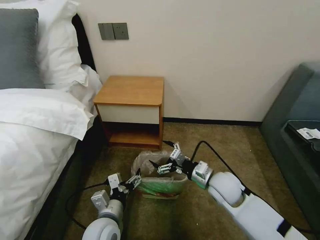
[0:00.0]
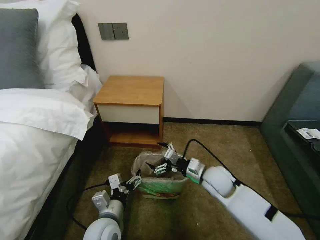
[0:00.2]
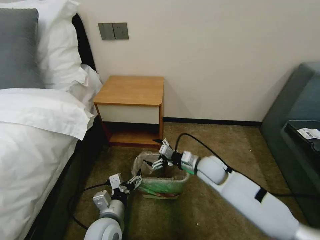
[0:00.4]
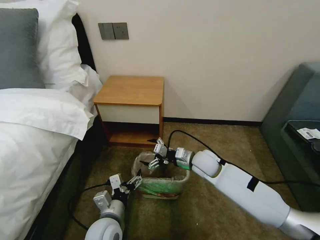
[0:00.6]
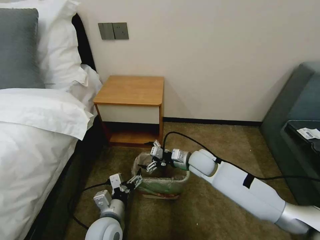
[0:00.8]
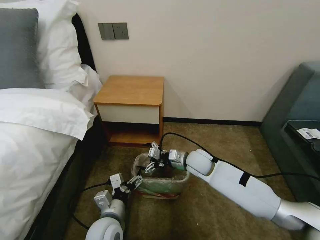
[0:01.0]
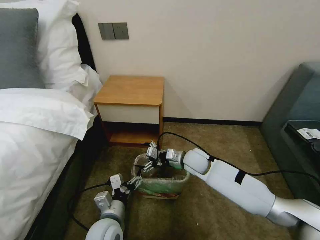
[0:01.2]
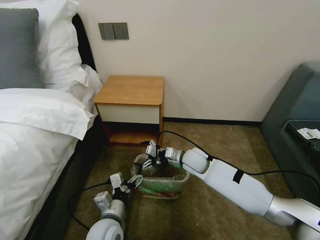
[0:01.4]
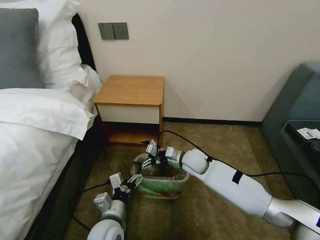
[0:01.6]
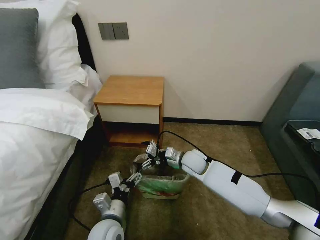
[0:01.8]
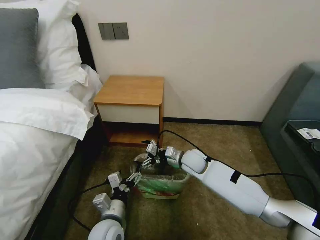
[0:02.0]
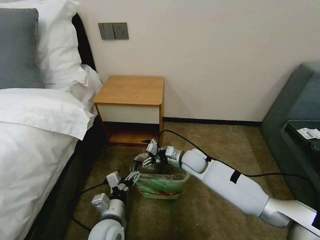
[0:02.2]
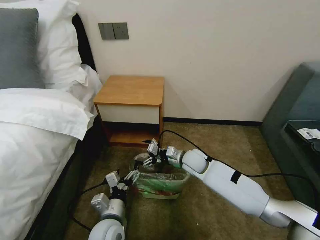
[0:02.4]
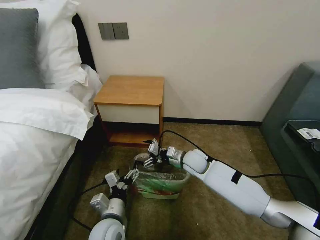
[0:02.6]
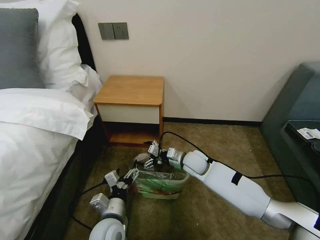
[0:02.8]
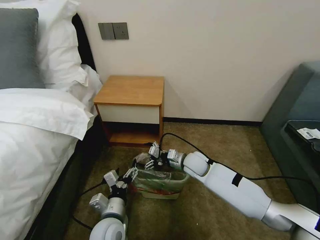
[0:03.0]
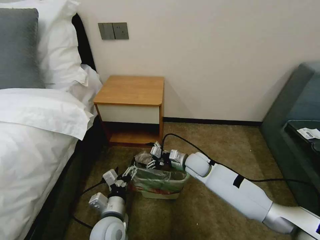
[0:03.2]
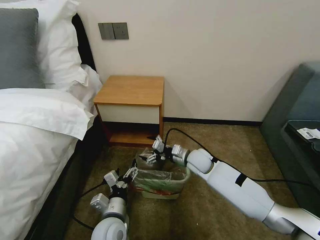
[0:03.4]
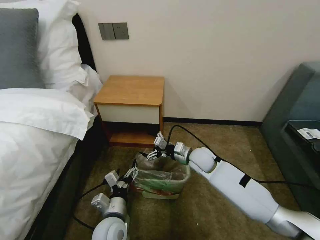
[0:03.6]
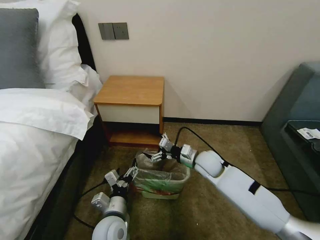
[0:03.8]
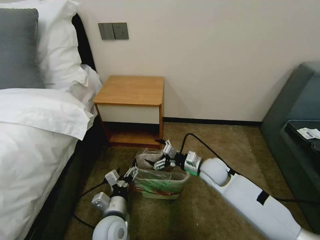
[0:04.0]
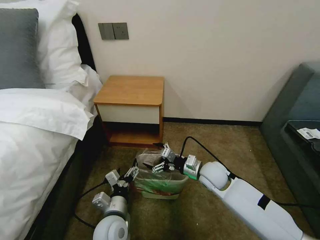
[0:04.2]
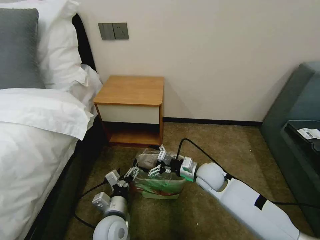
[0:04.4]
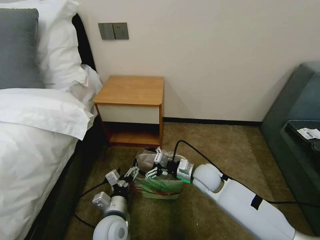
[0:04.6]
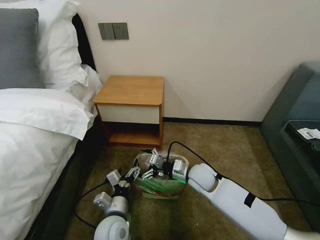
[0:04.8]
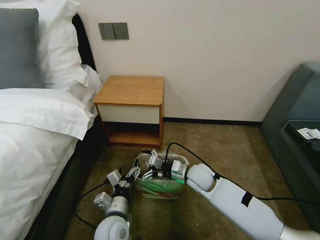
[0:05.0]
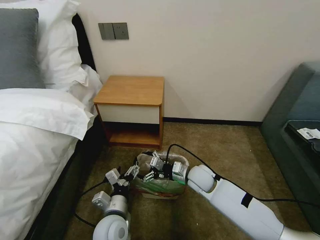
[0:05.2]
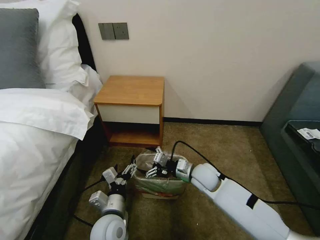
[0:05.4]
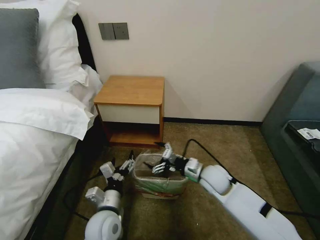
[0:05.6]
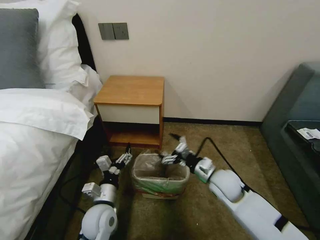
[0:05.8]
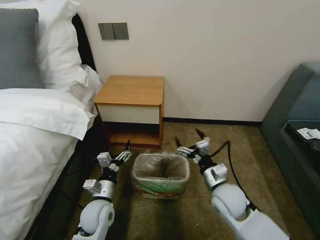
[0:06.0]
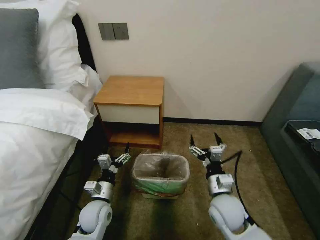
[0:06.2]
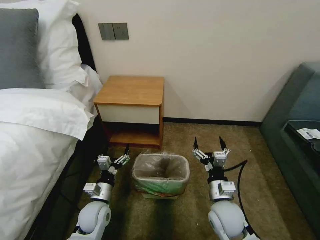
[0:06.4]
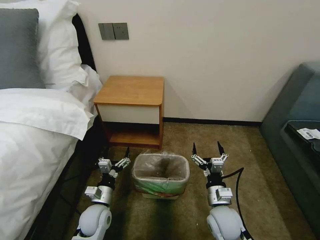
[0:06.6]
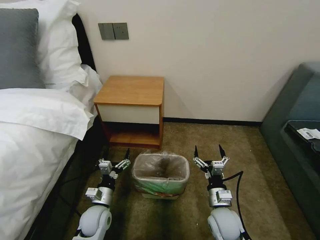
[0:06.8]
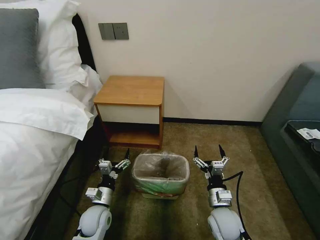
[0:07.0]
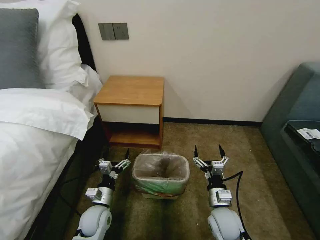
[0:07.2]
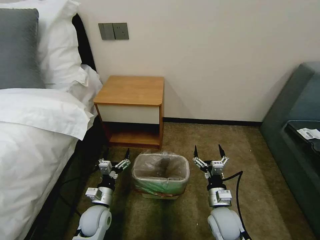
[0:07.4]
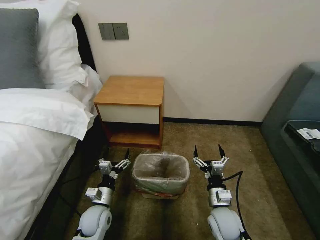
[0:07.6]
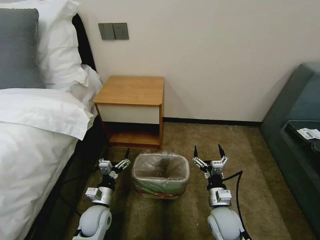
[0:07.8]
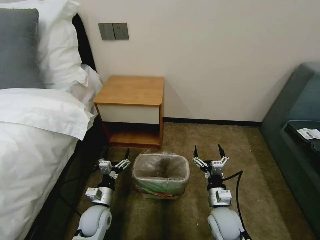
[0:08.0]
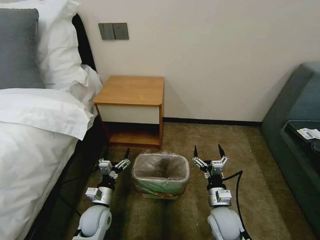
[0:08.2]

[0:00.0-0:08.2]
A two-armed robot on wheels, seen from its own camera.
Task of the whole recording: Pick up the garbage bag from the table and place it over the trash can.
0.0 to 1.6 s: The right gripper heads forward and to the left, covering some 15 cm.
1.6 to 3.2 s: The grippers stay close to where they were, moving slightly.
3.2 to 5.0 s: The right gripper heads backward, covering about 5 cm.
5.0 to 6.6 s: The right gripper shifts about 15 cm backward; the left gripper shifts roughly 10 cm to the left and downward.
6.6 to 8.2 s: The grippers make only small movements.

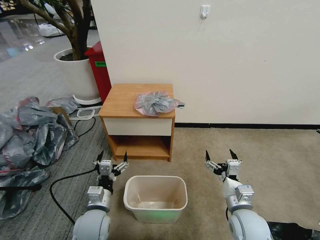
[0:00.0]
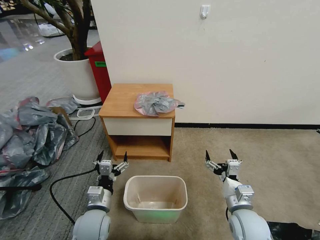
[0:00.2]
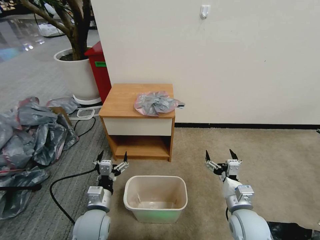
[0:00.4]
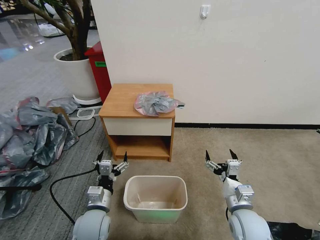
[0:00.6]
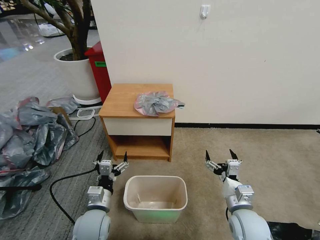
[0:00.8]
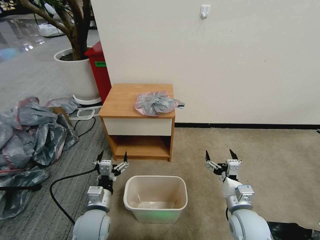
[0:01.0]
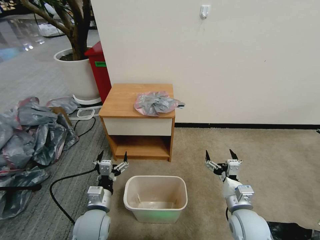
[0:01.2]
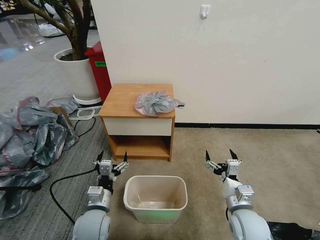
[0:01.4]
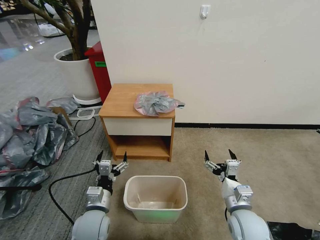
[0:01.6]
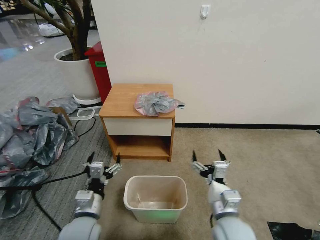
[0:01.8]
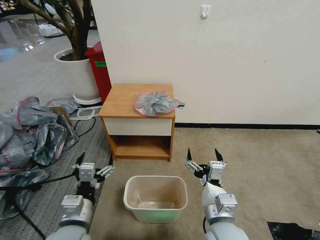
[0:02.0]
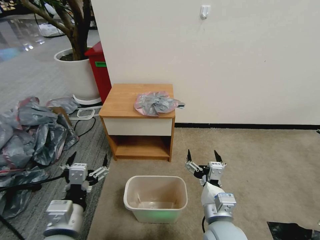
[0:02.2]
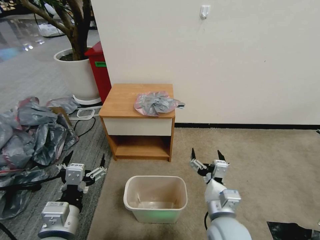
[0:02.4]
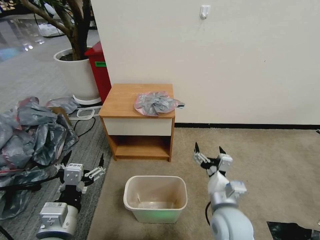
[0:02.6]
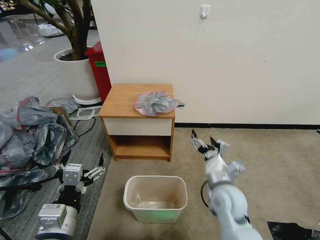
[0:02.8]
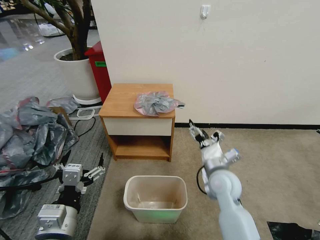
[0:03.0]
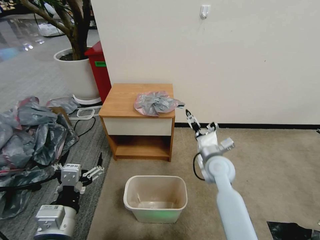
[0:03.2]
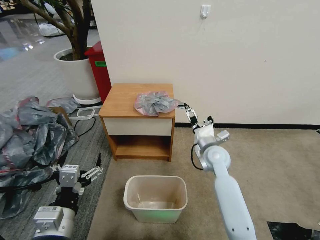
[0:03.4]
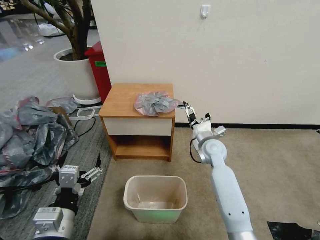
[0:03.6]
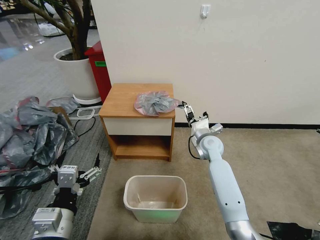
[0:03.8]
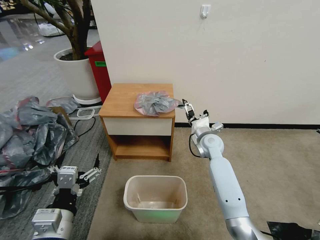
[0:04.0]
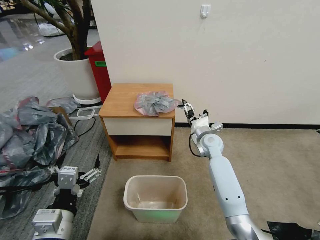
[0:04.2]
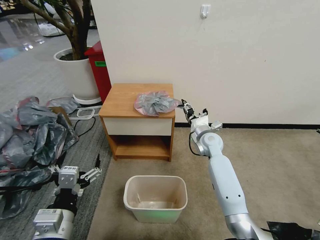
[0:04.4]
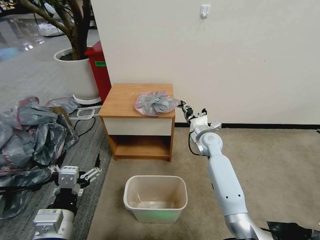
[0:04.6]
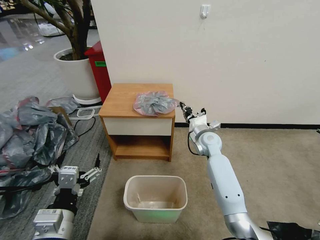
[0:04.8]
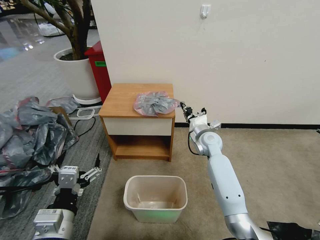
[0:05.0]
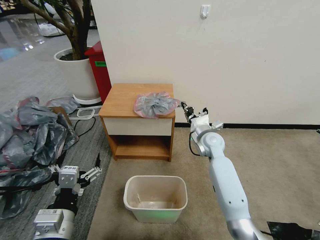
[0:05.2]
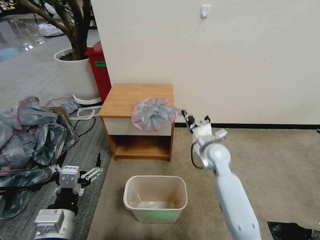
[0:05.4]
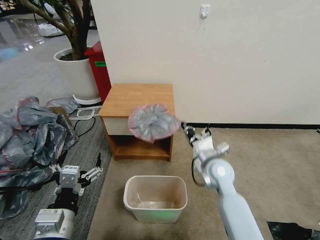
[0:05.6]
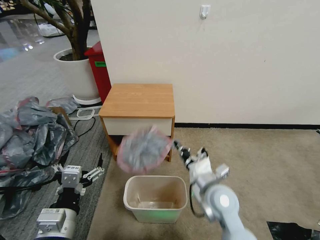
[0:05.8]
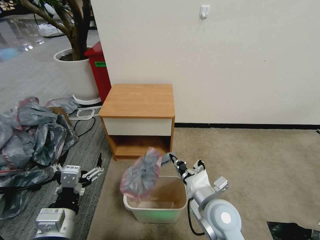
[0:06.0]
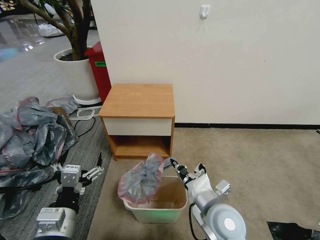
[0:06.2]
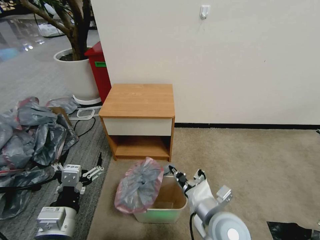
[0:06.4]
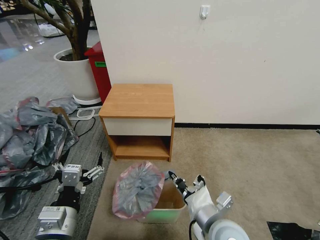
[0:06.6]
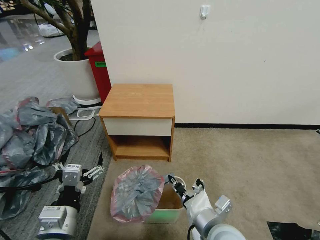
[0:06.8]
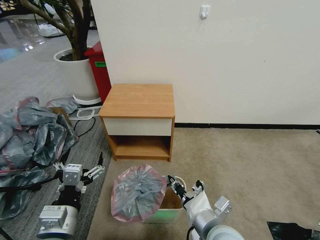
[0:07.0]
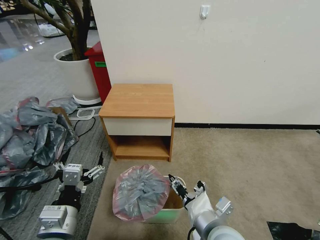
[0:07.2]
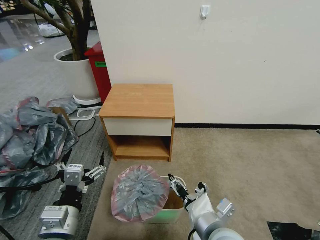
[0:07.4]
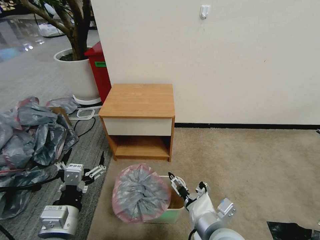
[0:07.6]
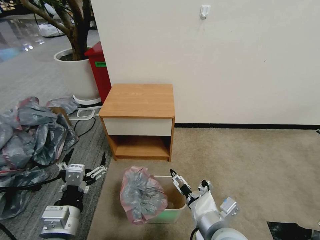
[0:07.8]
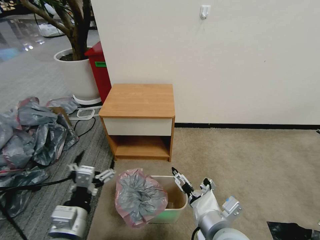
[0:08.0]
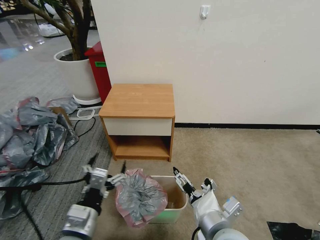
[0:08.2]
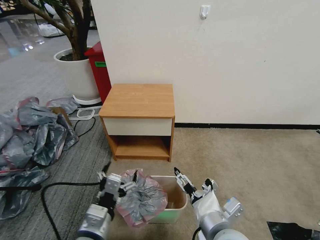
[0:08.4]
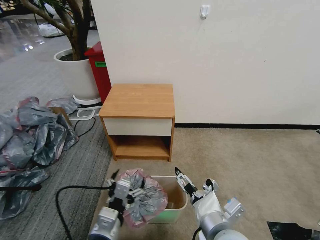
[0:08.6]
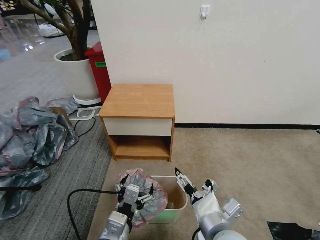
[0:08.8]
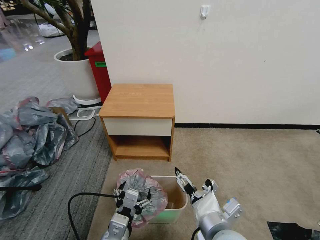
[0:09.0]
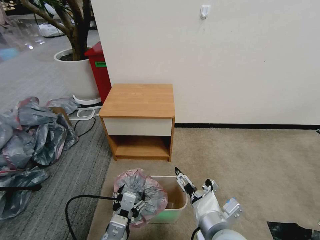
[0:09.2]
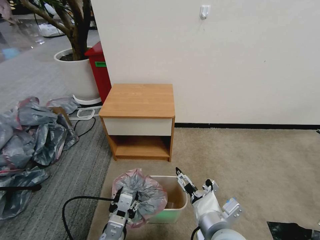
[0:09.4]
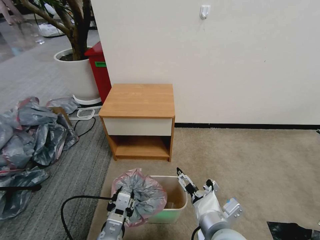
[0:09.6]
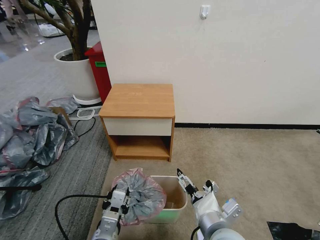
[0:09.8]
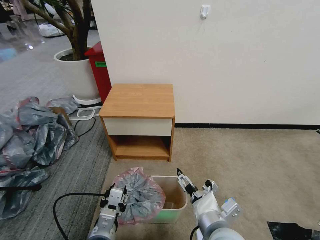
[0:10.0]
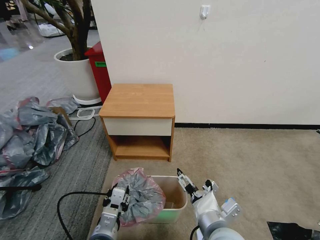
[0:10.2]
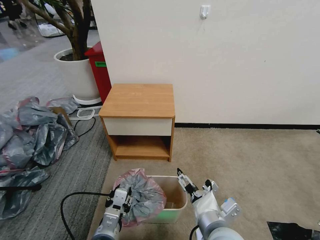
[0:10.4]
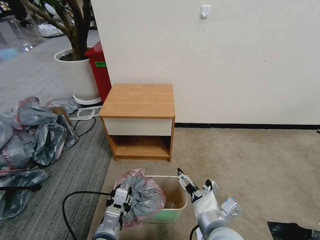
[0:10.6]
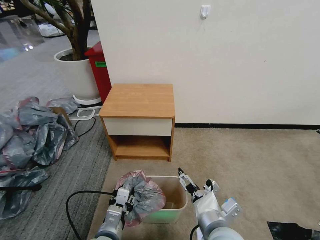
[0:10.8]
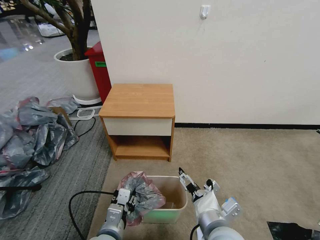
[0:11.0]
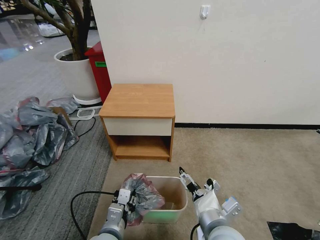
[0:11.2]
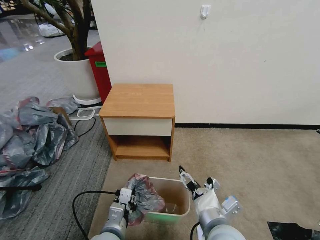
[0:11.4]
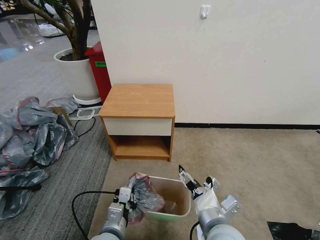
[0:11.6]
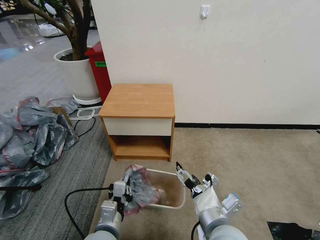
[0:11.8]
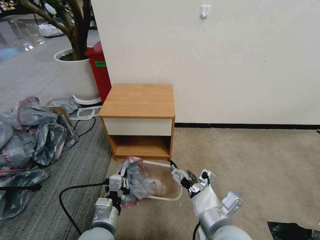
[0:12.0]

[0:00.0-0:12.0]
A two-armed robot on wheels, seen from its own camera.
Task of the whole recording: Pick up the garbage bag from the table and place it over the trash can.
1.6 to 3.0 s: The right gripper shifts roughly 10 cm forward and upward, while the left gripper goes some 15 cm upward and backward.
3.0 to 4.4 s: The right gripper shifts about 15 cm forward, and closes.
4.4 to 6.0 s: The right gripper goes some 25 cm backward, and closes up.
6.0 to 7.6 s: The right gripper heads backward, covering about 5 cm, and opens its fingers.
7.6 to 9.0 s: The left gripper moves to the right and downward, approximately 10 cm.
9.0 to 10.4 s: The left gripper closes up.
10.4 to 12.0 s: The left gripper closes.

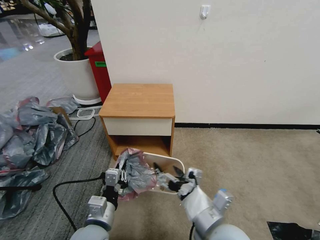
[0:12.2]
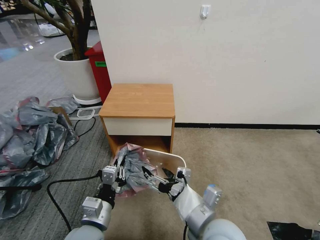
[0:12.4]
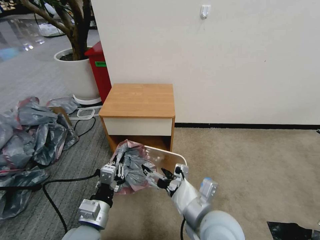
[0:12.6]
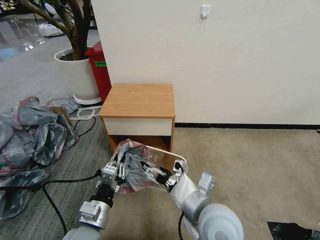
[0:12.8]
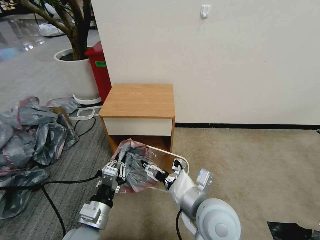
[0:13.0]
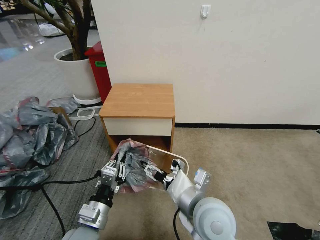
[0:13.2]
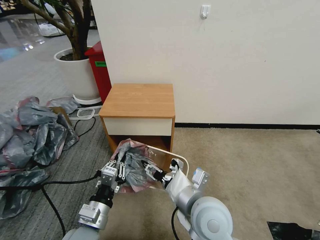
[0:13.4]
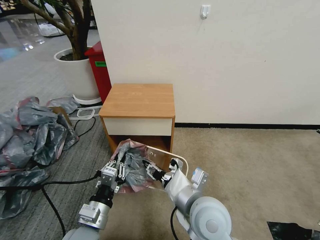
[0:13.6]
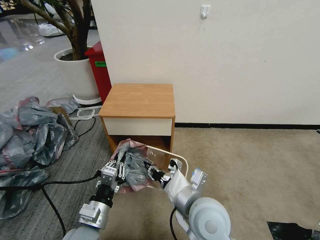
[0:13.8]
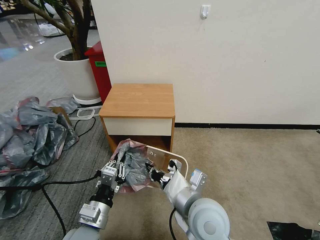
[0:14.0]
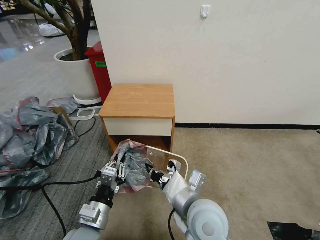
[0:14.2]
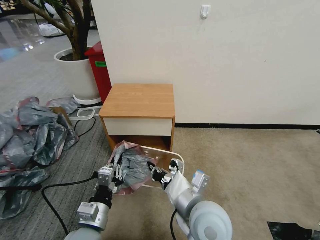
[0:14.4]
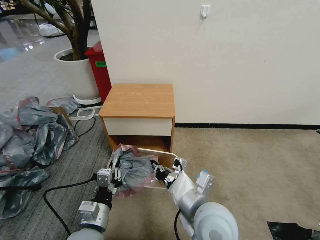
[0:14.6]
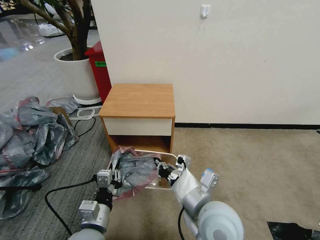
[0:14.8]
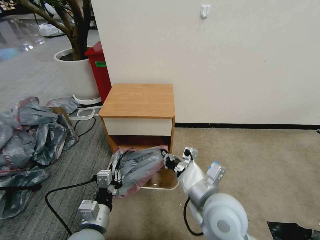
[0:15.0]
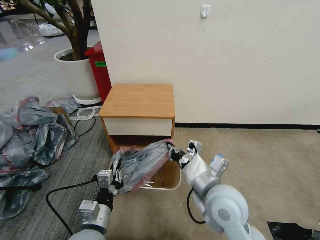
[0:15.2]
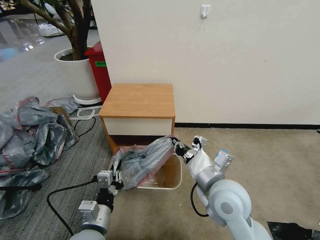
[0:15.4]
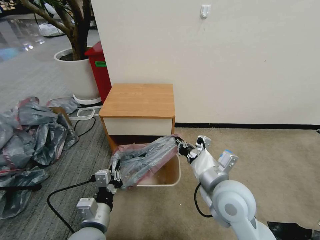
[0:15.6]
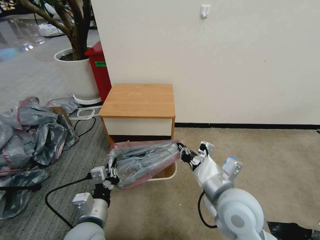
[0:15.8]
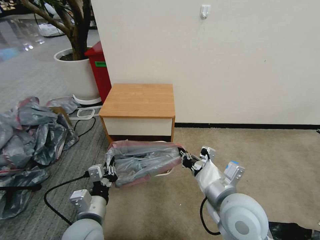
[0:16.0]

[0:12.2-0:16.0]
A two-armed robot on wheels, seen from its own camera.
Task of the whole recording: Pick up the garbage bag from the table and place it over the trash can.
12.2 to 13.4 s: The right gripper is displaced forward by some 5 cm.
13.4 to 14.8 s: The right gripper closes up.
14.8 to 16.0 s: The right gripper moves to the right, about 5 cm.
